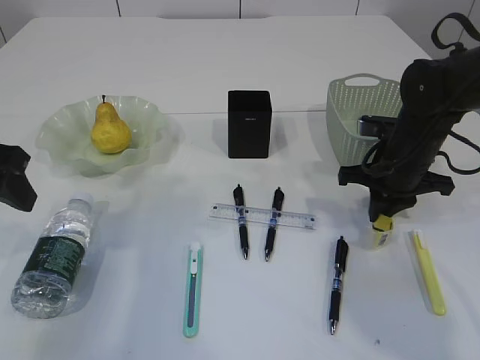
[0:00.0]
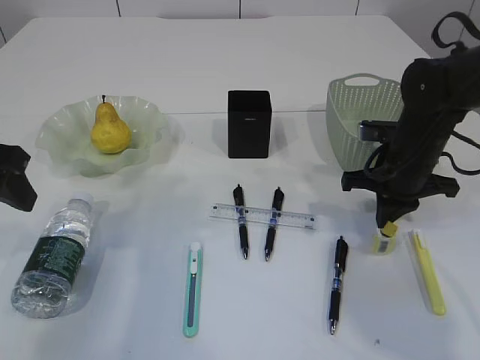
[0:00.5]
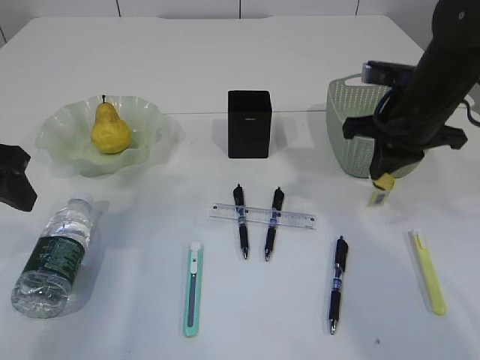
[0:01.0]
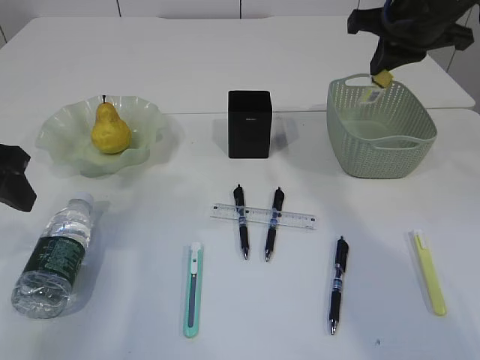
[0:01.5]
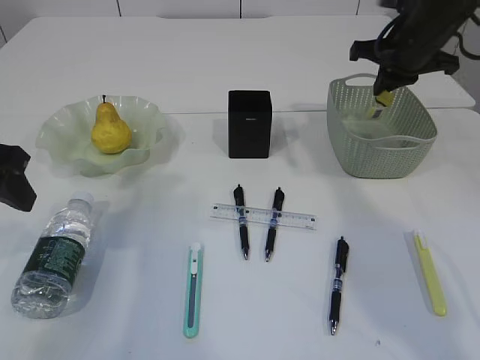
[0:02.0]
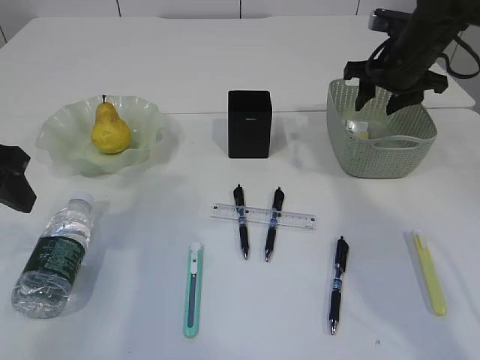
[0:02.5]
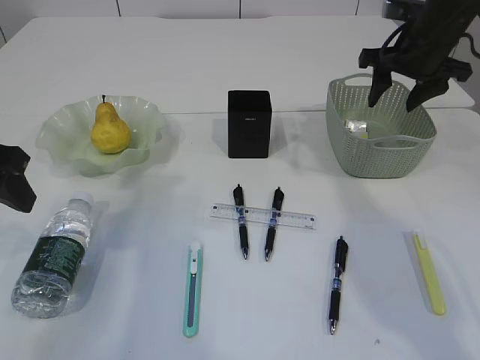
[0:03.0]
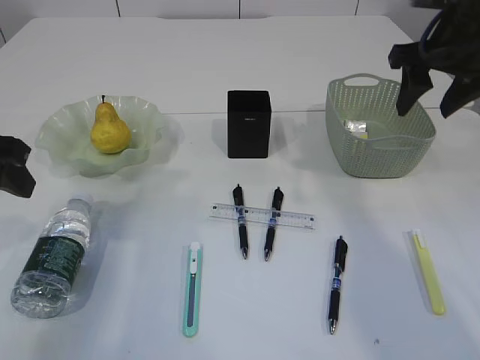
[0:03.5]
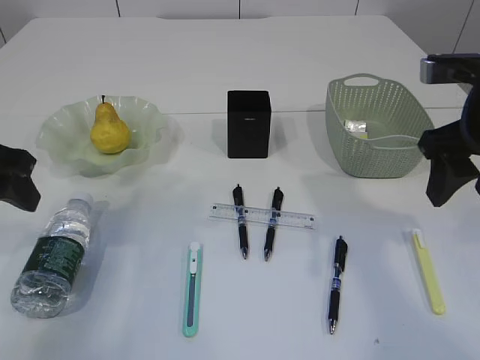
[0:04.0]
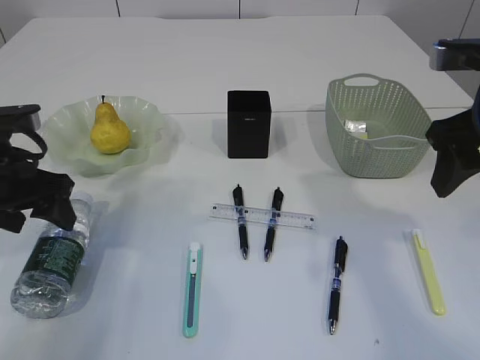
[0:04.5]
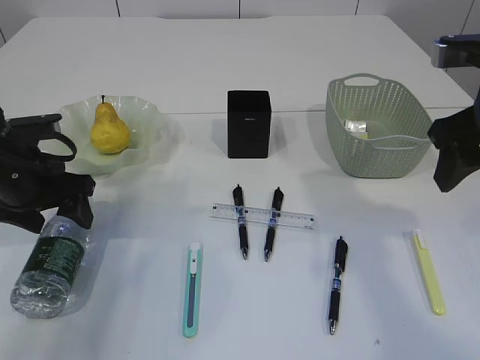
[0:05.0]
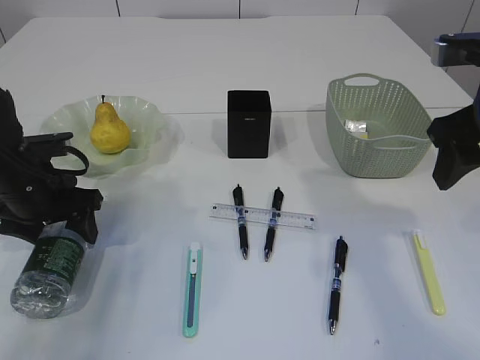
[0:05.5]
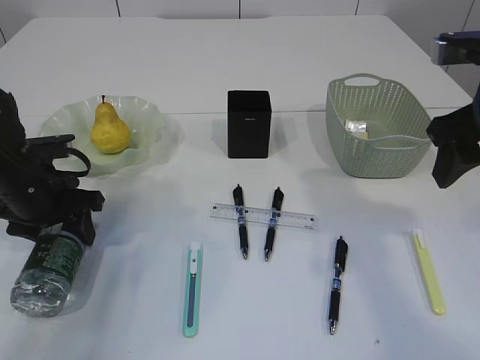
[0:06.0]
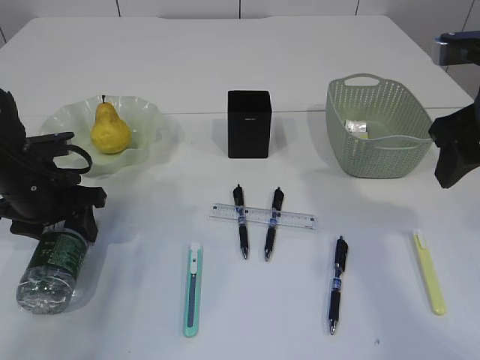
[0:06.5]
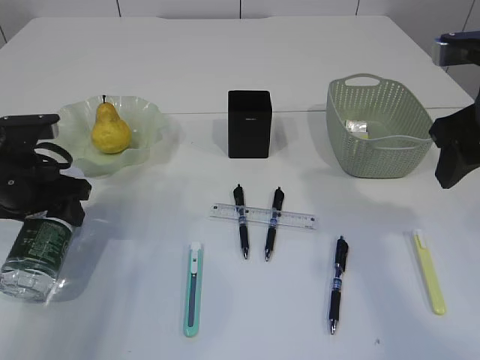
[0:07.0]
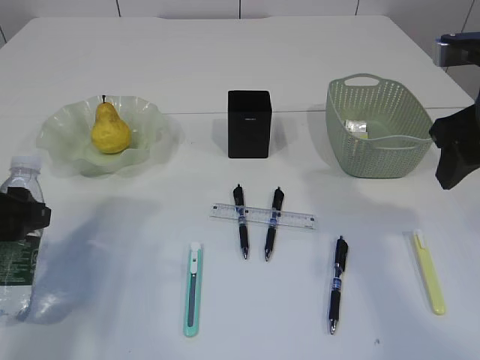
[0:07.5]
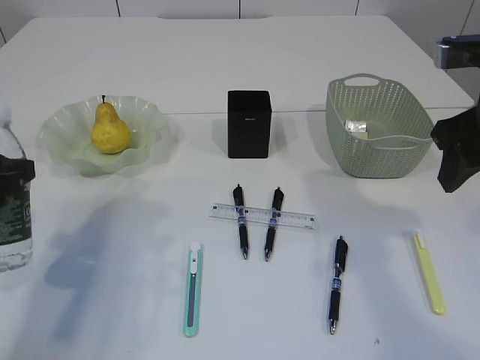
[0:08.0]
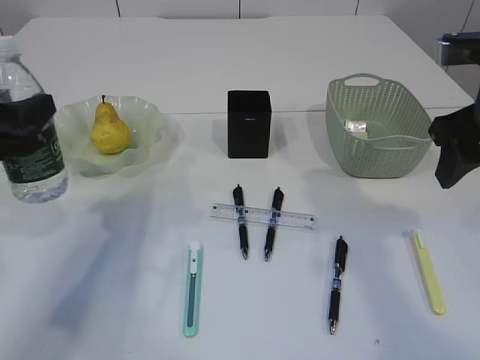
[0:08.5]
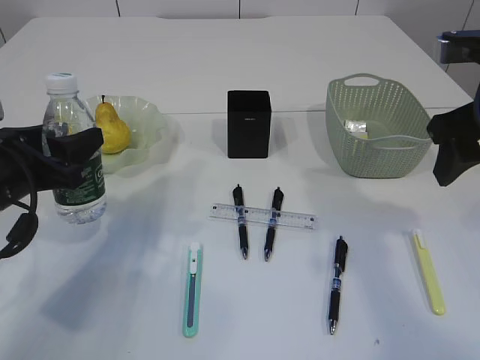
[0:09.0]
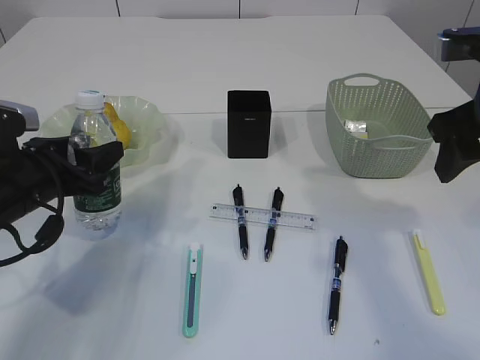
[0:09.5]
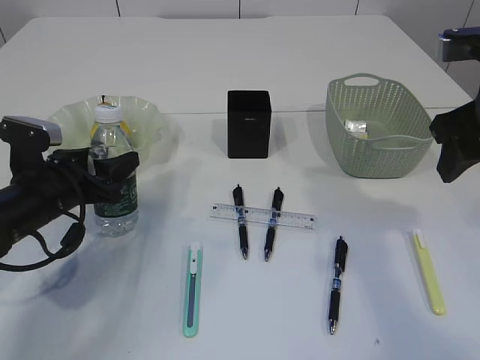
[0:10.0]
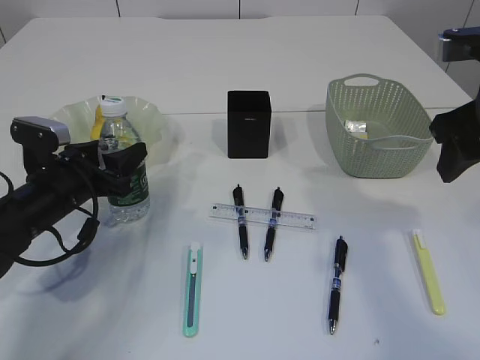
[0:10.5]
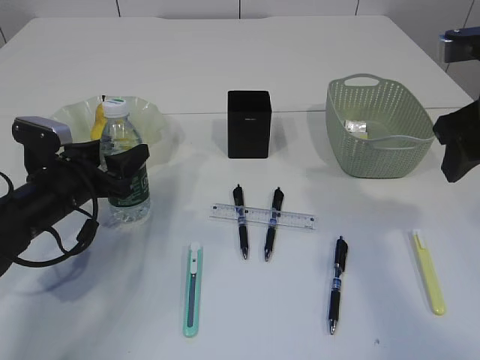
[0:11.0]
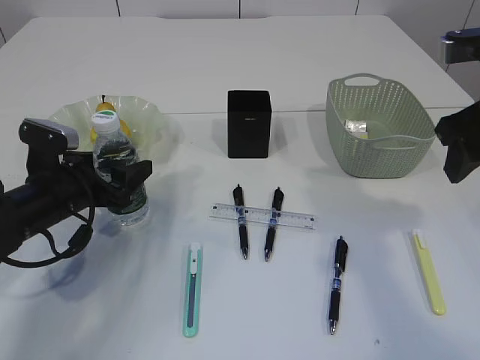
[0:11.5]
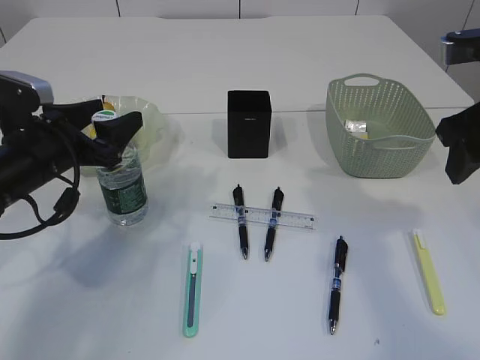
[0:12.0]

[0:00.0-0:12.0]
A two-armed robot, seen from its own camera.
Step, 0:01.5 to 0:04.0: Place the waste paper in the basket.
Step, 0:04.5 to 0:08.0: Pick up the bottle with the left arm.
0:00.0 to 0:02.0: The right gripper shifts approximately 15 cm upward and forward.
0:02.0 to 0:04.0: The right gripper goes roughly 20 cm backward, and opens.
0:04.0 to 0:06.0: The left gripper heads downward and forward, covering roughly 15 cm.
0:06.0 to 0:08.0: The left gripper moves backward and upward, about 15 cm.
0:08.0 to 0:10.0: The left gripper moves downward and forward, about 15 cm.
0:10.0 to 0:12.0: There are only small adjustments of the grippers.

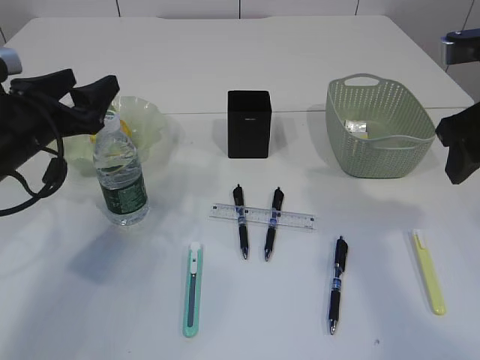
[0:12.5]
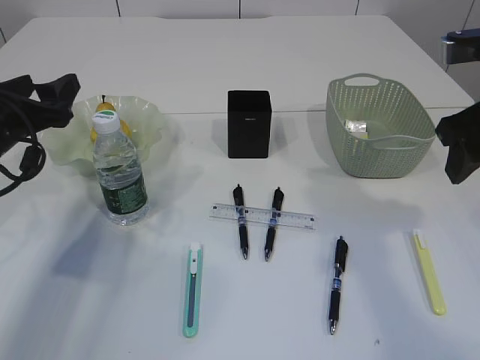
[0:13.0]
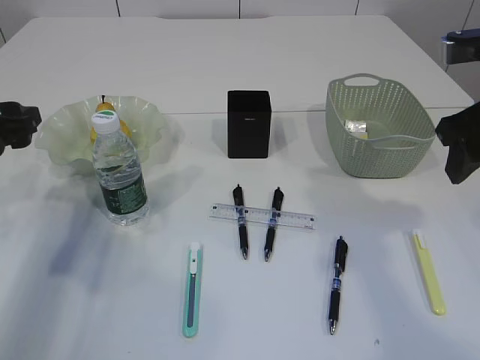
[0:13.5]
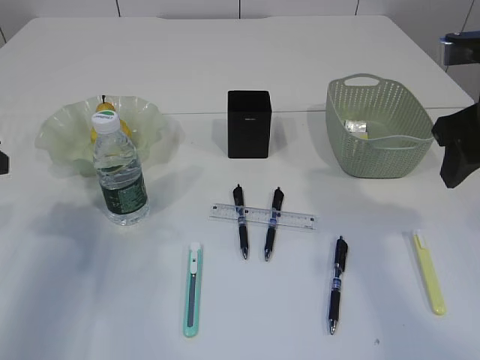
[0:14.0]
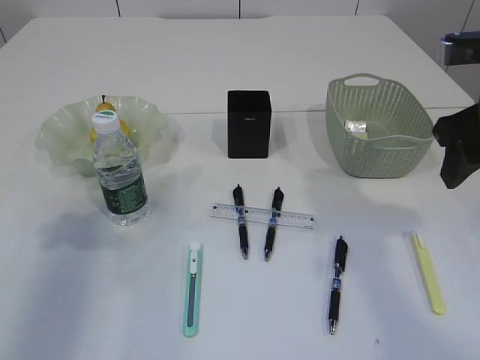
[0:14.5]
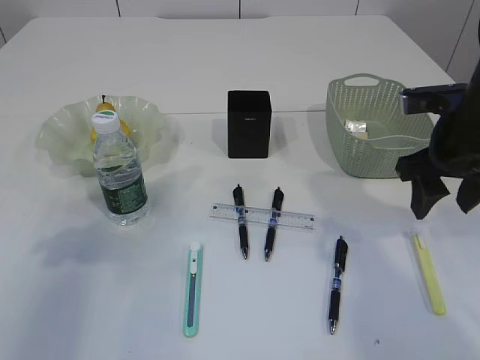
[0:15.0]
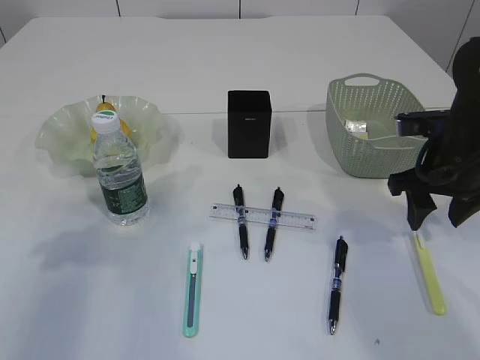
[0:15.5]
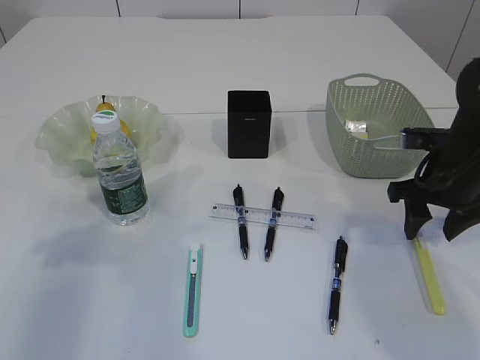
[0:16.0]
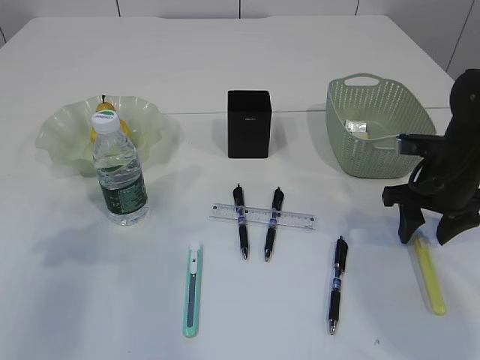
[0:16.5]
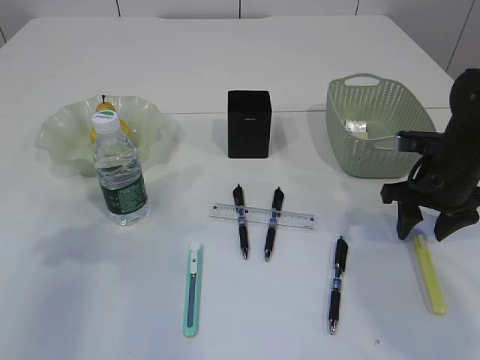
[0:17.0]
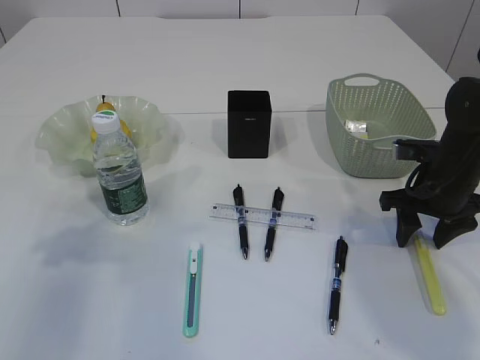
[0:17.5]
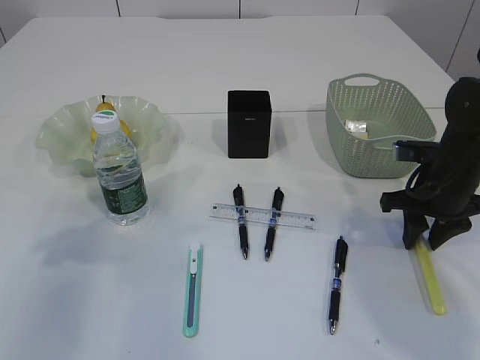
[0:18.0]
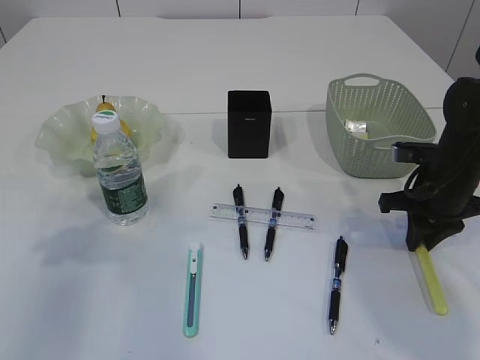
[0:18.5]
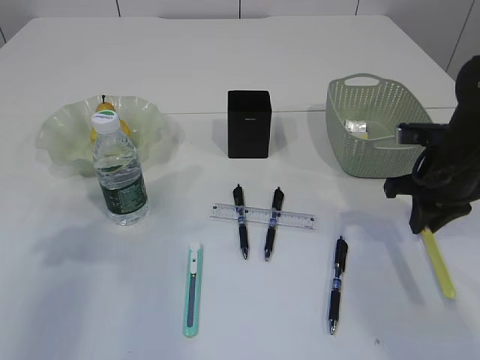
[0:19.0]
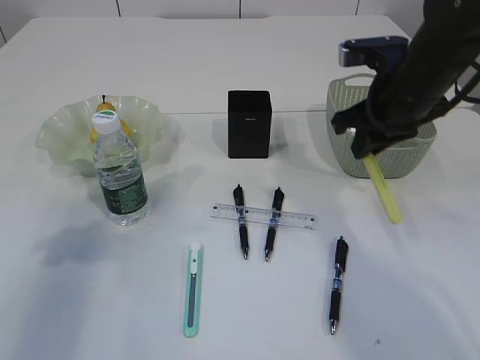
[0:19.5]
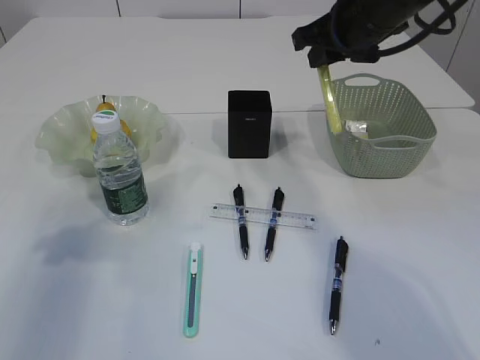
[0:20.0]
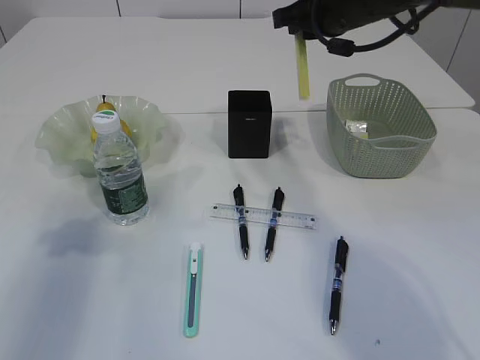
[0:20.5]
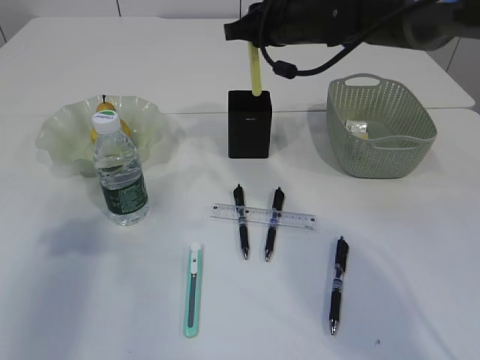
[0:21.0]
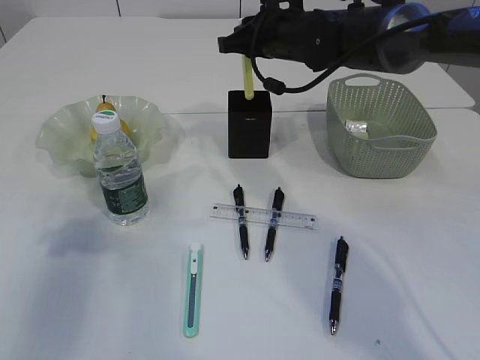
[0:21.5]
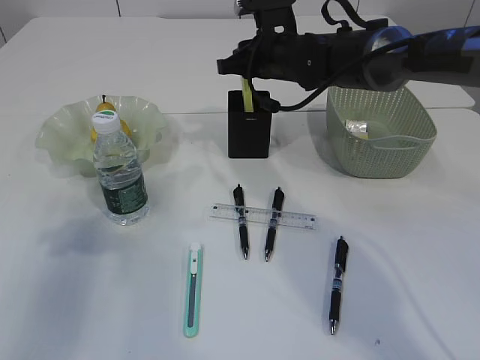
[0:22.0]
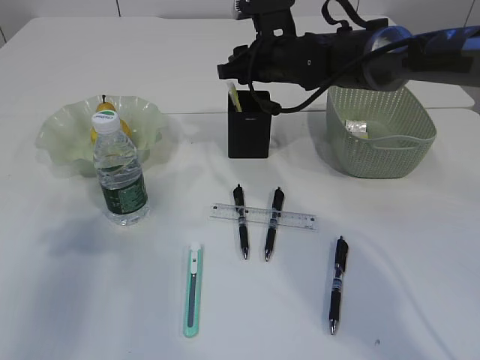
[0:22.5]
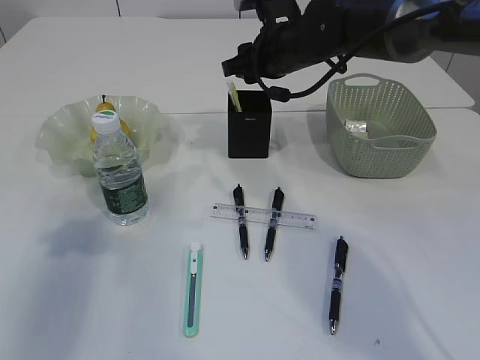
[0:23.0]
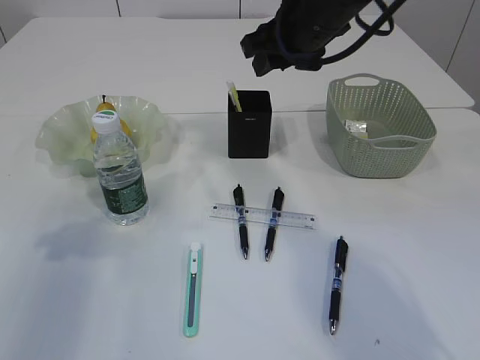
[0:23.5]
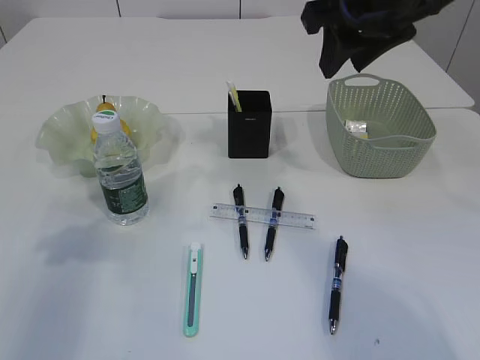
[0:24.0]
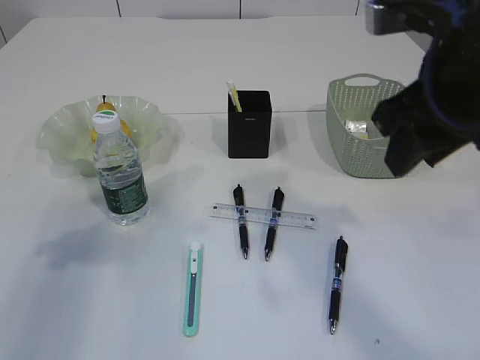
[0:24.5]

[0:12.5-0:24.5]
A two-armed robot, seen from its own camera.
Step, 0:13.5 to 0:19.0: pick up the yellow knife.
Step, 0:19.5 to 0:23.0: place the yellow knife into the pen holder.
0:12.5 to 0:14.5: The left gripper shifts about 15 cm upward, to the left and backward.
0:14.5 to 0:16.5: The right gripper shifts some 15 cm downward and forward.
0:16.5 to 0:18.5: The right gripper closes up.
0:18.5 to 0:20.5: The right gripper moves upward, to the left and forward, some 25 cm.
0:20.5 to 0:22.5: The right gripper heads downward, to the left and forward, covering roughly 10 cm, and opens.
0:22.5 to 0:24.5: The right gripper goes some 25 cm backward and upward.

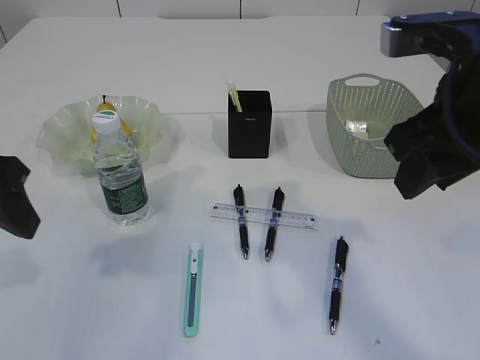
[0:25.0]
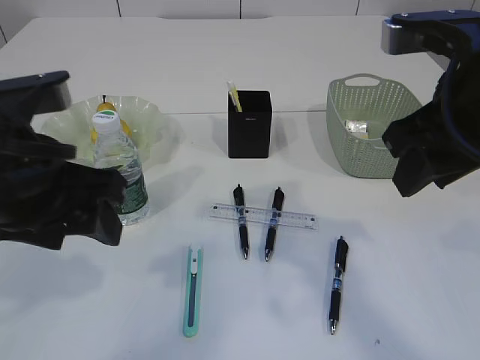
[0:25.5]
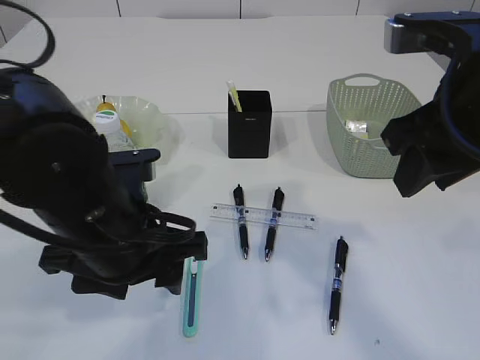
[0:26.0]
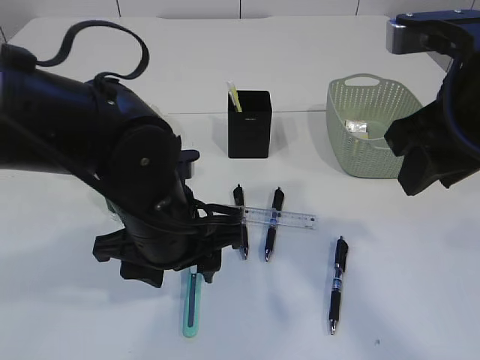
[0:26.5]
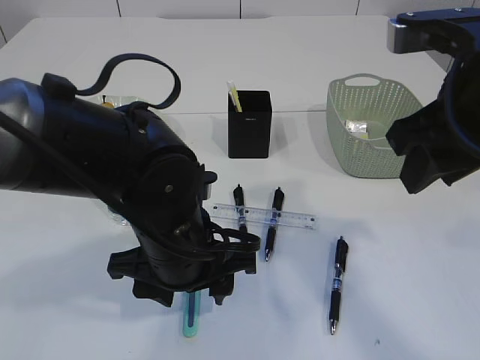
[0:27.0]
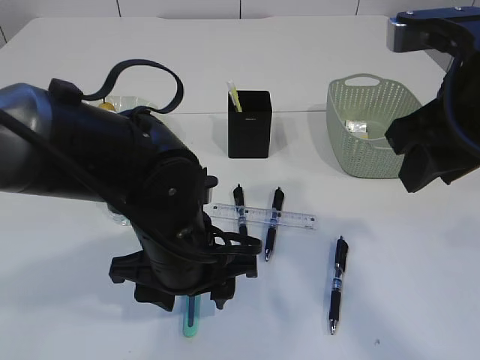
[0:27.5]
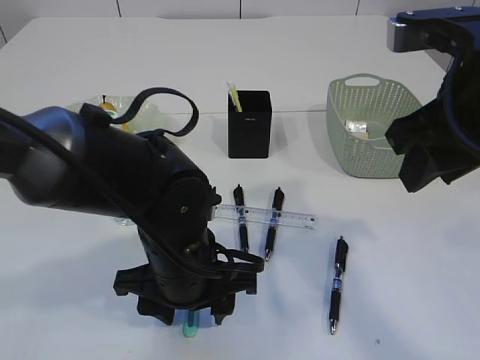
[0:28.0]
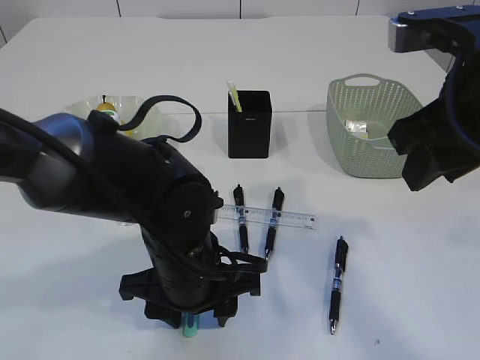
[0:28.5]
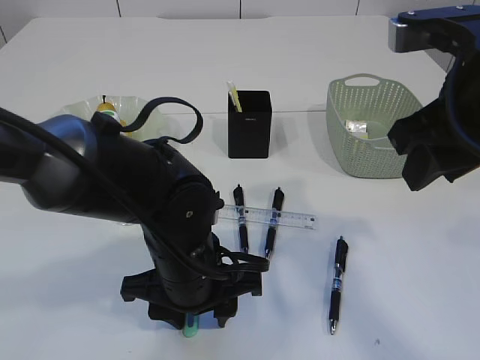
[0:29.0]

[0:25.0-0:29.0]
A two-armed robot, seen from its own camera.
0:25.0 to 0:27.0: The left gripper moves to the right and downward, roughly 25 cm.
0:27.0 to 0:29.0: The grippers move only a little.
